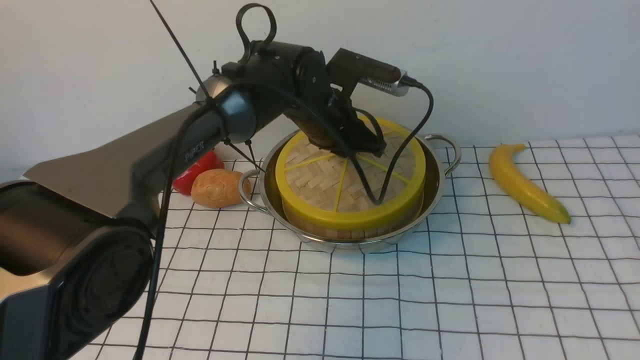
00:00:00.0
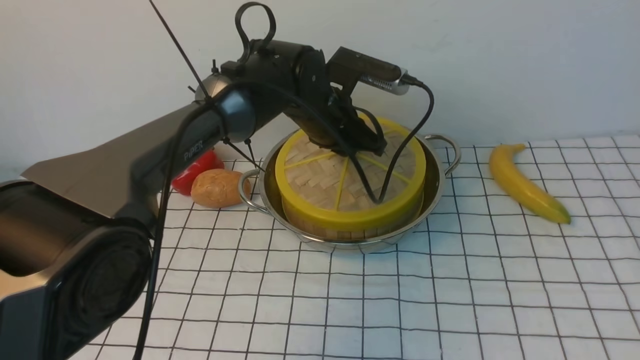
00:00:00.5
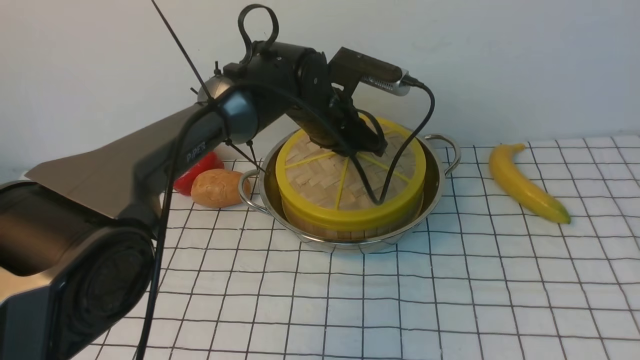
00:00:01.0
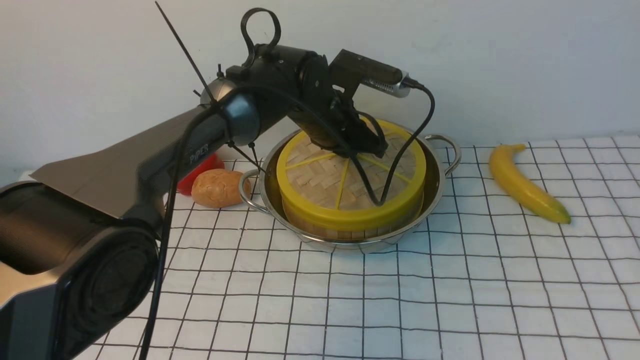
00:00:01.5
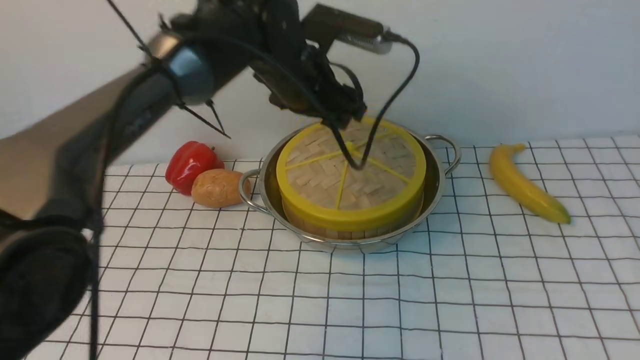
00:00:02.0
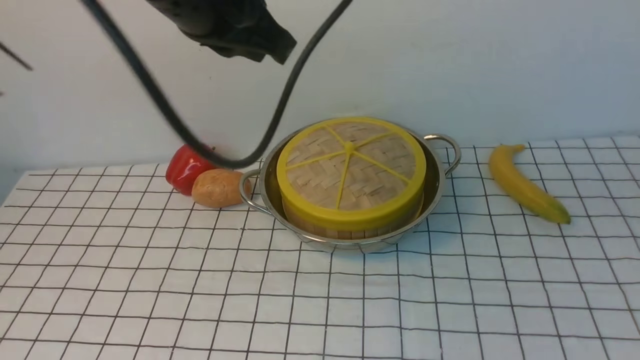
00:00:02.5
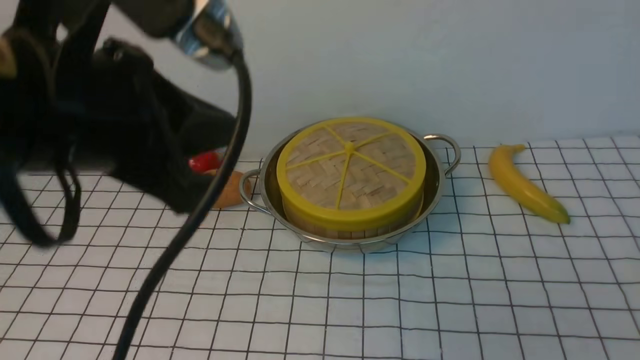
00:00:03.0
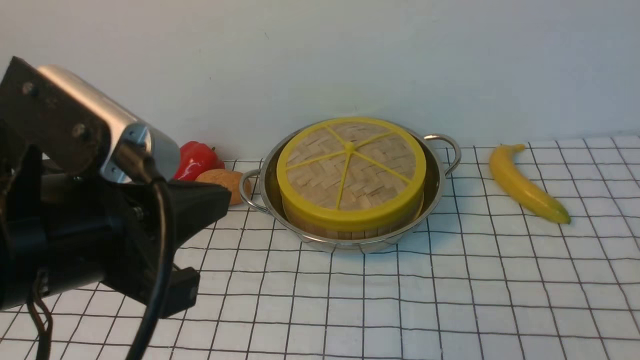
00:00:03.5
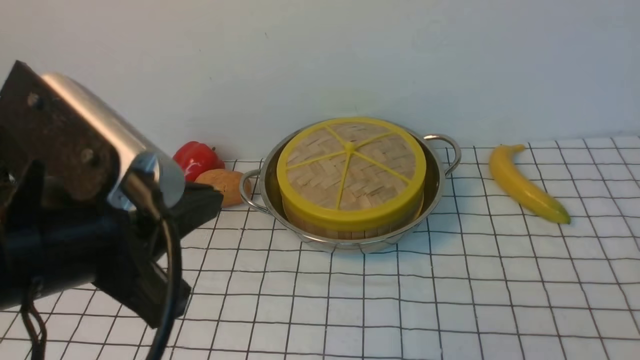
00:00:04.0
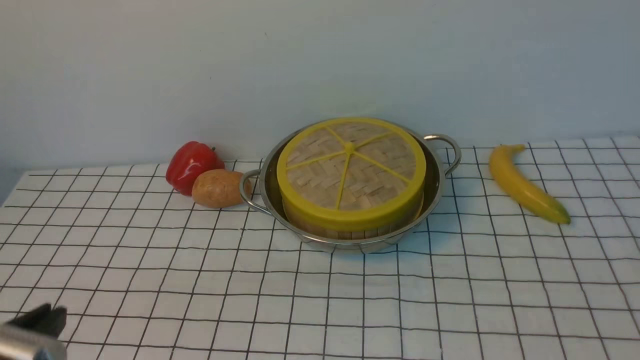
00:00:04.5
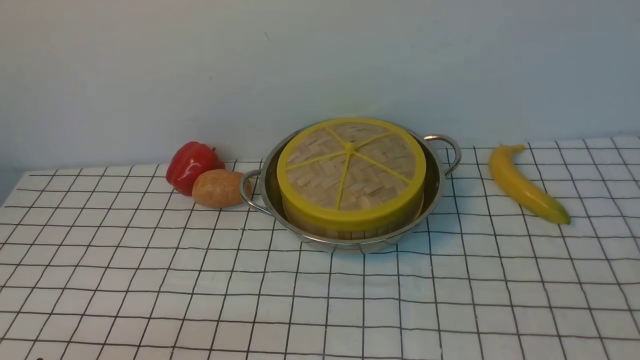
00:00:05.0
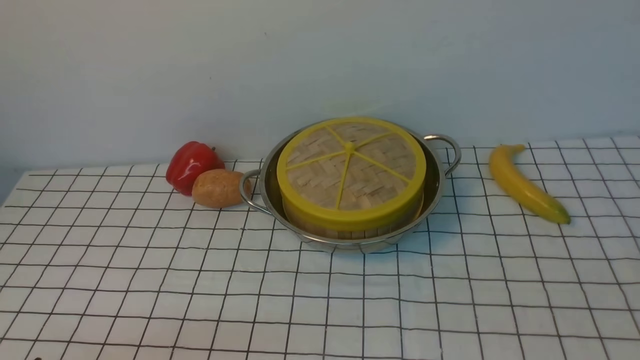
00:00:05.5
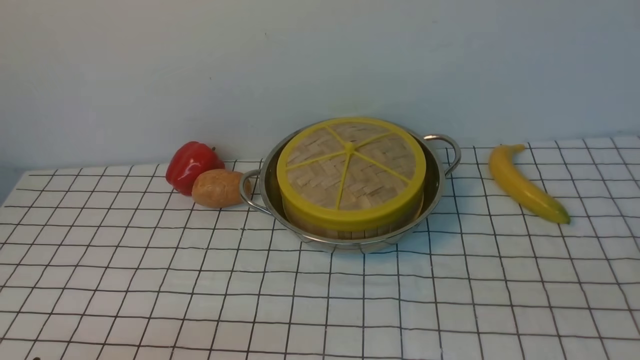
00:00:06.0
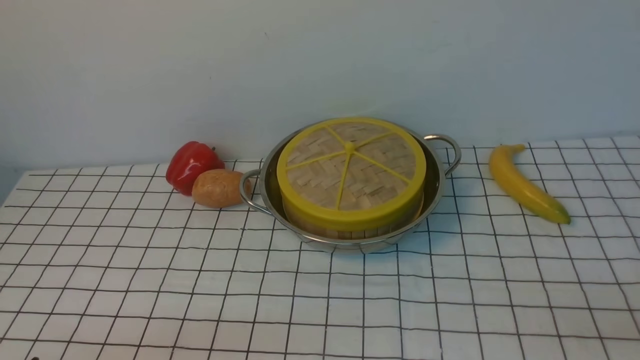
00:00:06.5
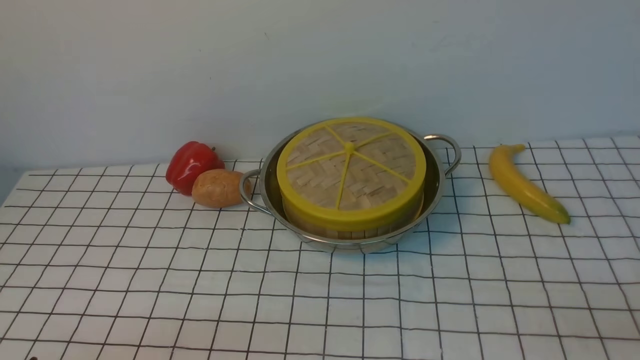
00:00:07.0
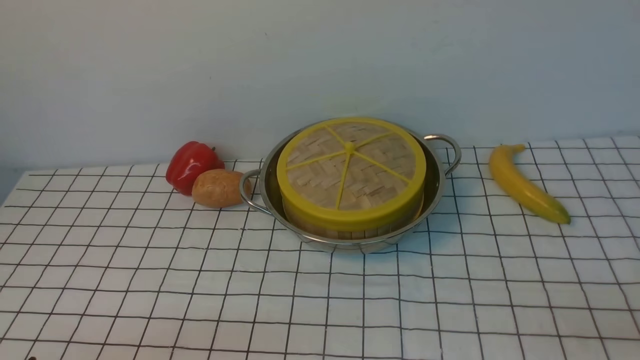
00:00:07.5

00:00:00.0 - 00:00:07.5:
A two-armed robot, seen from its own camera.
Task of the whole recording: place the steamer in the pot on the white tablecloth, and put the lid on the steamer.
Step, 00:00:00.0 - 00:00:02.0: use the left arm to place the steamer lid on the steamer.
00:00:00.0 - 00:00:02.0: The left gripper shifts roughly 10 cm upward, and opens its fingers.
00:00:02.0 - 00:00:04.0: The right gripper travels downward by approximately 25 cm, and closes up, while the left gripper shifts some 30 cm backward and to the left, and closes its fingers.
00:00:04.0 - 00:00:05.5: The left gripper is displaced downward, backward and to the left by some 20 cm.

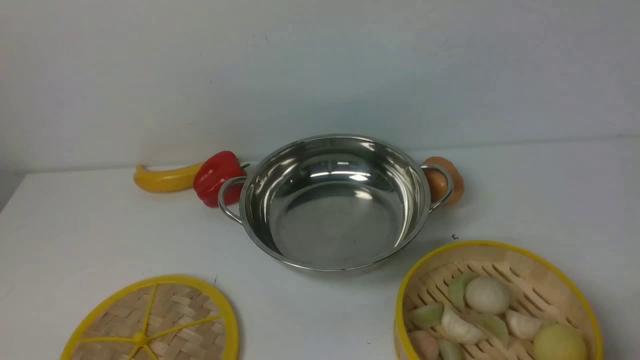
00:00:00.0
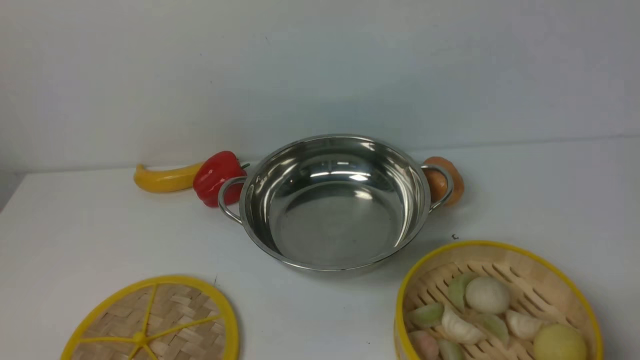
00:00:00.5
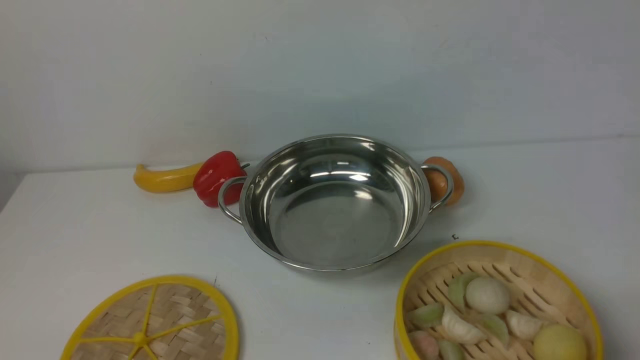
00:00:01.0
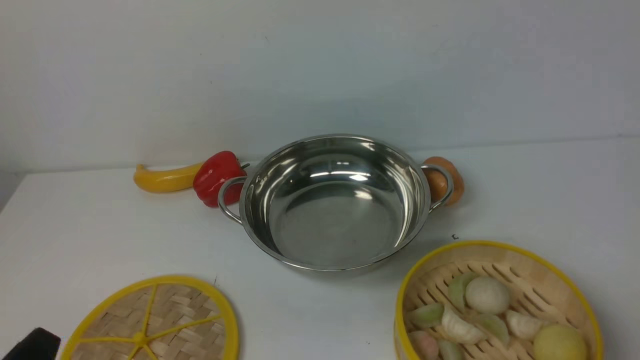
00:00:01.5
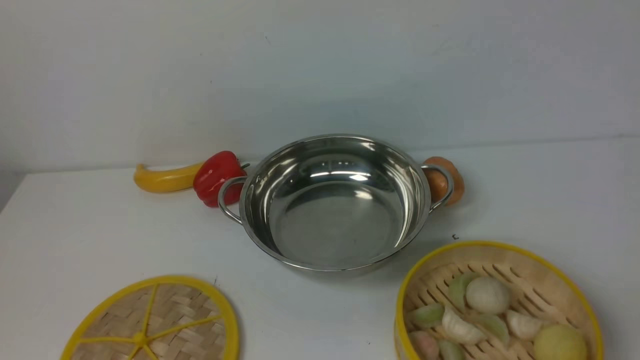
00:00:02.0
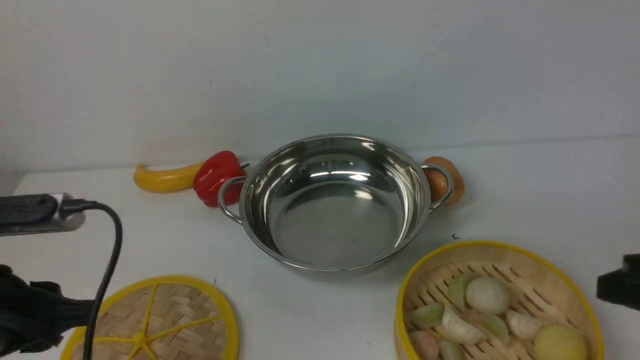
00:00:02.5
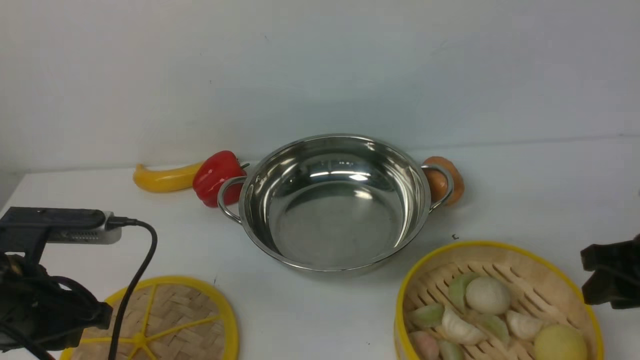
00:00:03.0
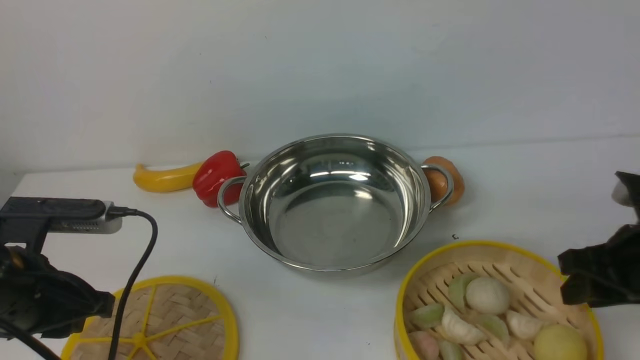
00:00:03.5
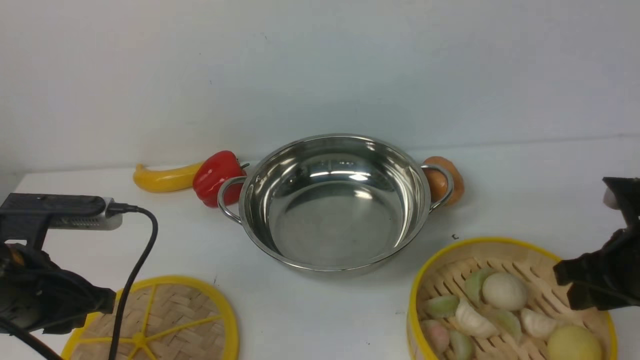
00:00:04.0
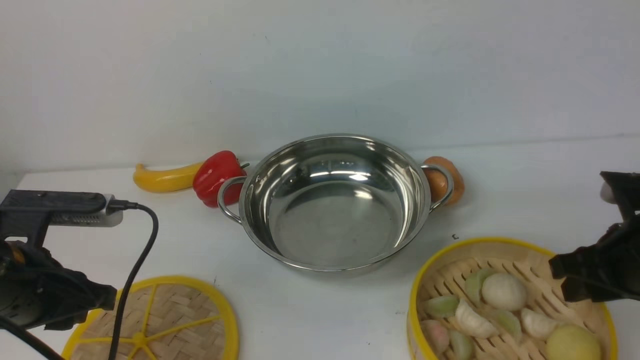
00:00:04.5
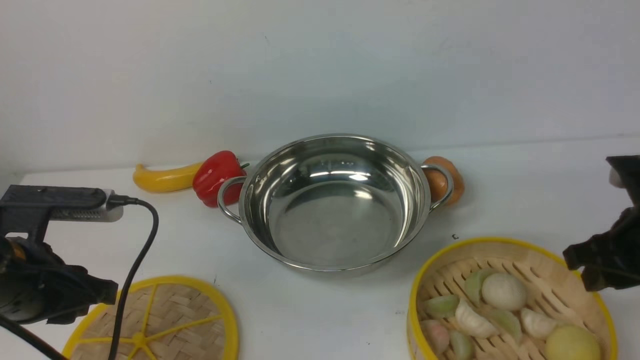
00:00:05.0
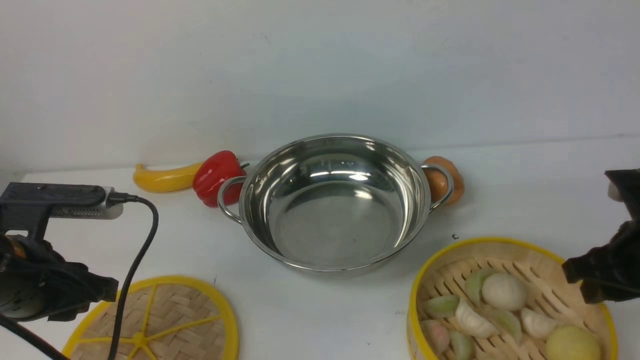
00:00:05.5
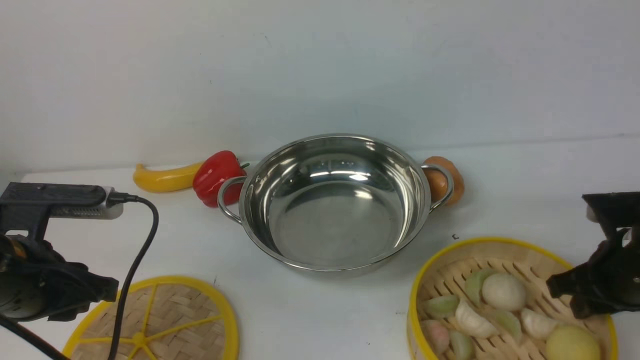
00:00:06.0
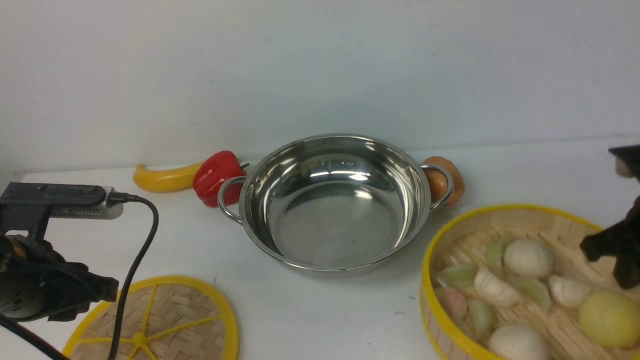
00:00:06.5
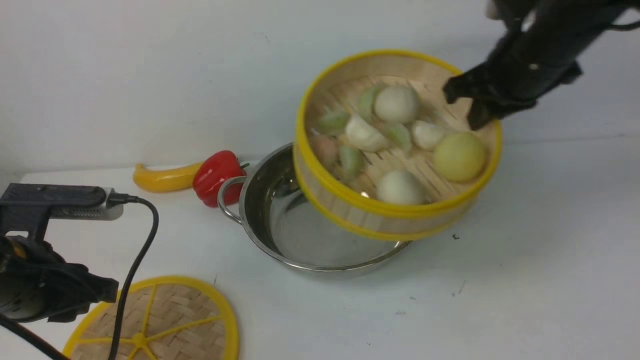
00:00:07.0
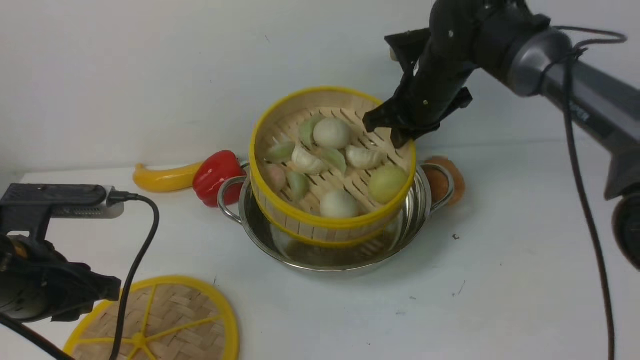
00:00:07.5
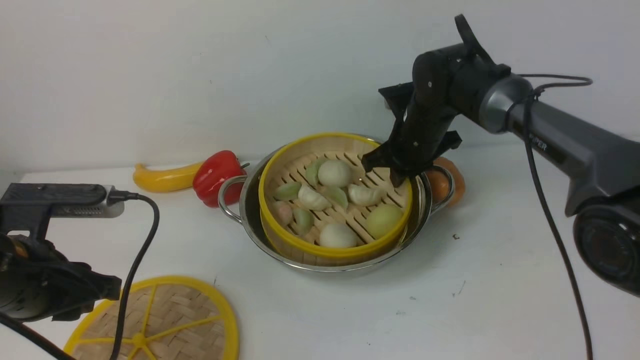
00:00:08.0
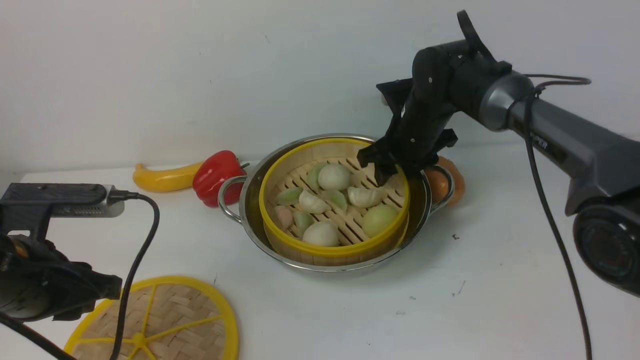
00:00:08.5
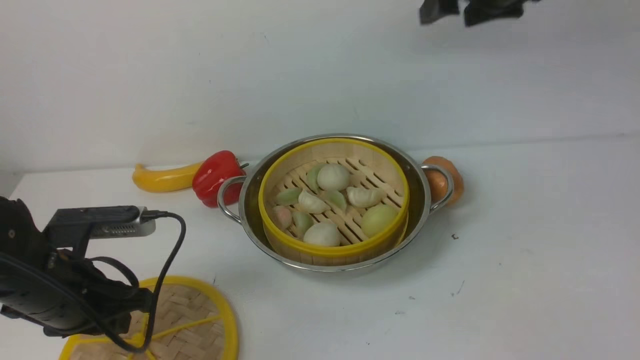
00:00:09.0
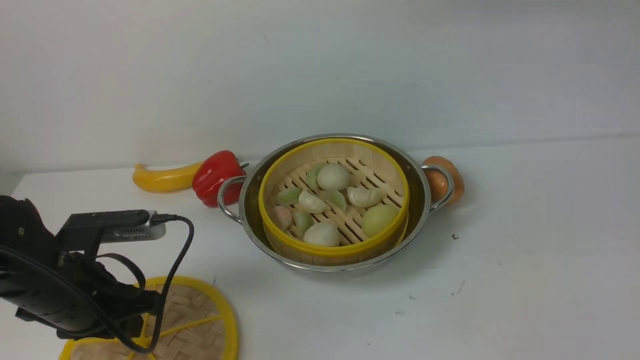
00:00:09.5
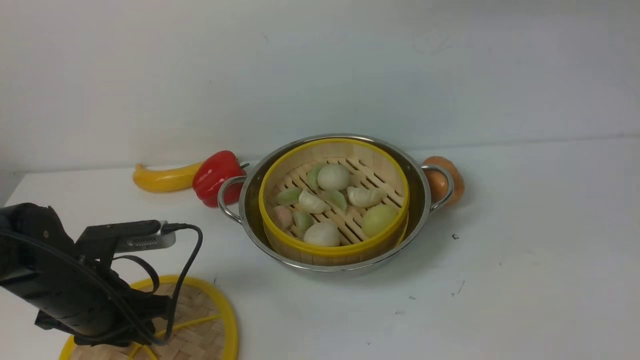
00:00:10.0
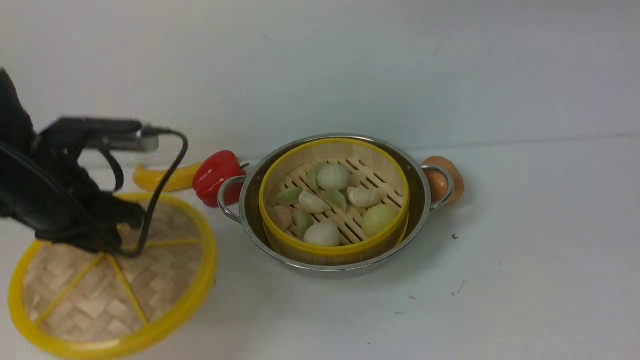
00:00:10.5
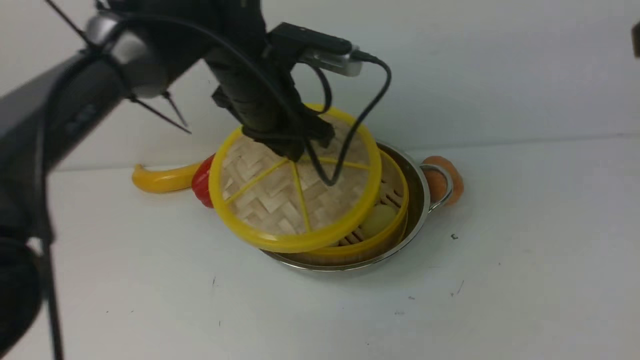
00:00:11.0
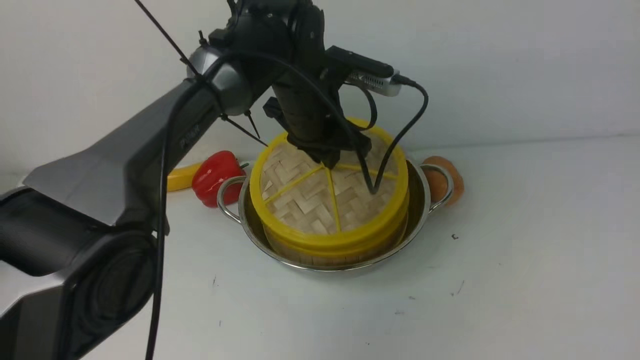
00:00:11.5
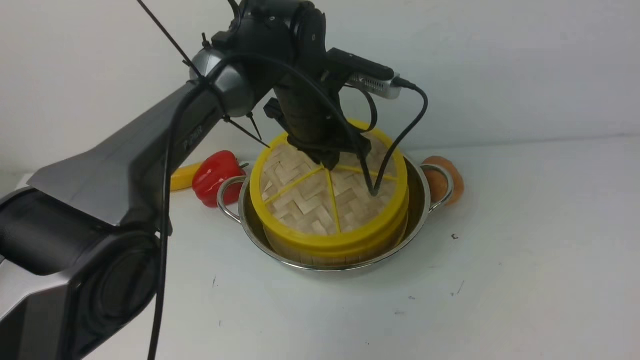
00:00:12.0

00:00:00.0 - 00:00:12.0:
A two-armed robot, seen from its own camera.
Task of the whole recording: place the steamer in the pot on the white table, and put the lid on the steamer.
Step, 00:00:00.0 - 00:00:06.5: use the right arm to lift the steamer closest to it.
Step, 00:00:07.0 - 00:00:09.0: use the right arm to put the steamer into the iron steamer pot in the middle.
Step, 00:00:09.5 - 00:00:10.5: use the left arm to lift the lid of the steamer.
00:00:02.0 - 00:00:04.0: Both grippers travel together forward, some 20 cm.
00:00:04.0 - 00:00:06.0: The grippers make only small movements.
00:00:06.0 - 00:00:08.0: The right gripper travels forward and to the left by roughly 25 cm.
00:00:08.0 - 00:00:10.0: The right gripper shifts roughly 25 cm upward, and opens; the left gripper goes some 5 cm downward.
00:00:10.0 - 00:00:12.0: The left gripper moves to the right and forward, about 30 cm. Meanwhile the right gripper moves backward, about 20 cm.
